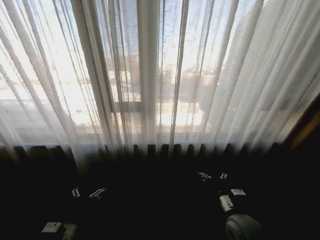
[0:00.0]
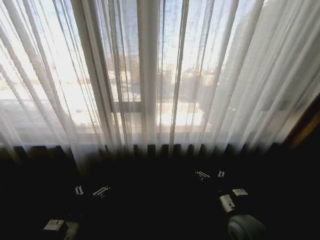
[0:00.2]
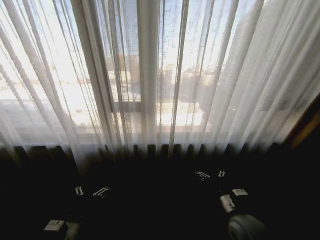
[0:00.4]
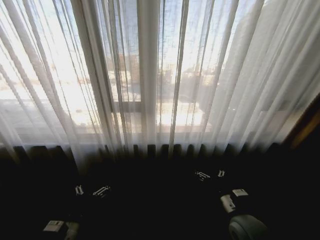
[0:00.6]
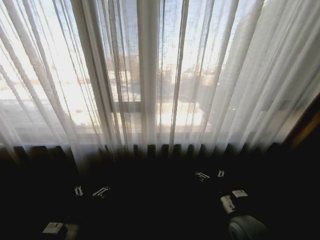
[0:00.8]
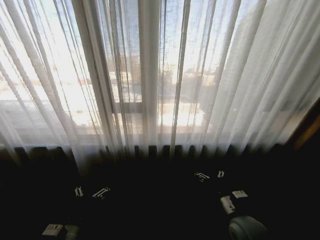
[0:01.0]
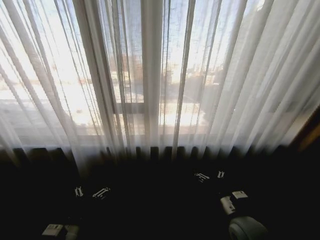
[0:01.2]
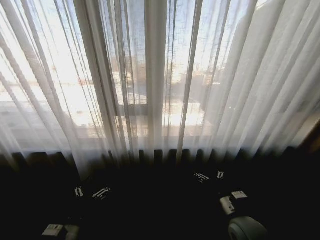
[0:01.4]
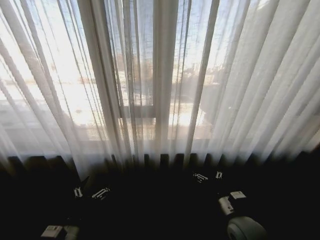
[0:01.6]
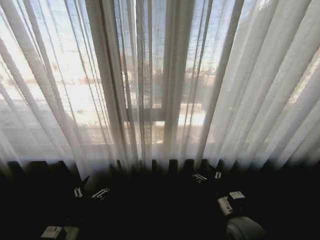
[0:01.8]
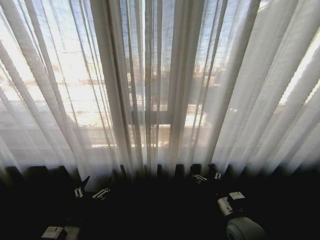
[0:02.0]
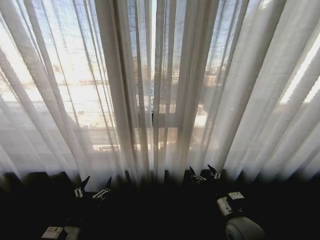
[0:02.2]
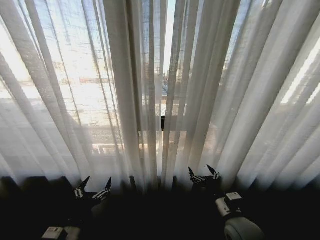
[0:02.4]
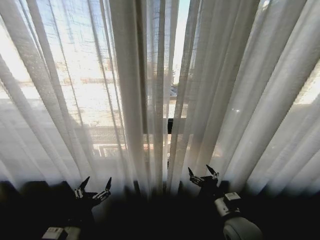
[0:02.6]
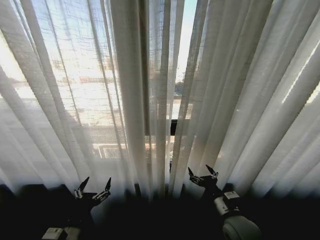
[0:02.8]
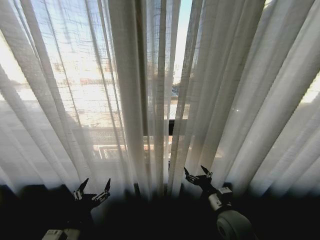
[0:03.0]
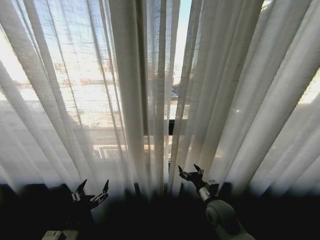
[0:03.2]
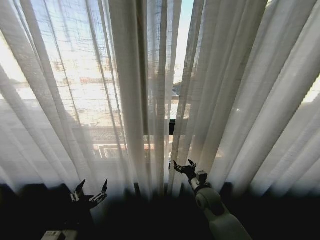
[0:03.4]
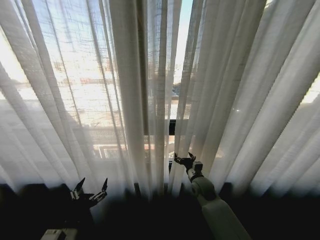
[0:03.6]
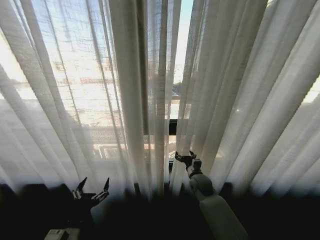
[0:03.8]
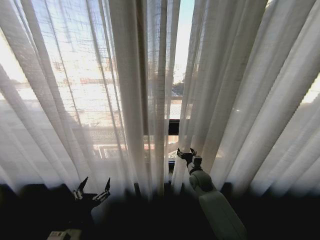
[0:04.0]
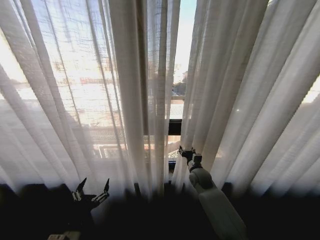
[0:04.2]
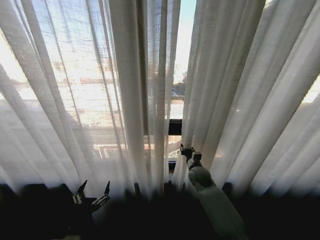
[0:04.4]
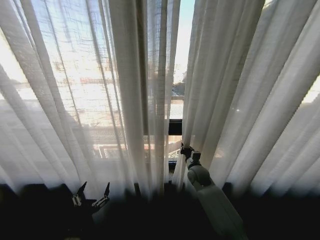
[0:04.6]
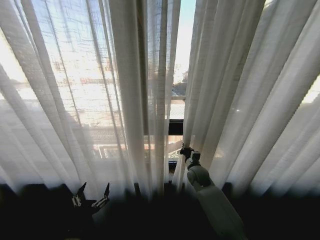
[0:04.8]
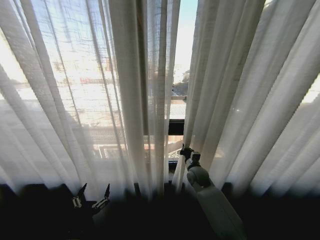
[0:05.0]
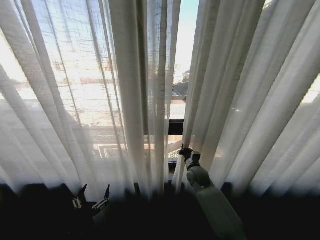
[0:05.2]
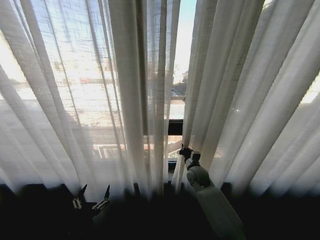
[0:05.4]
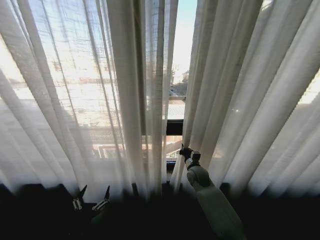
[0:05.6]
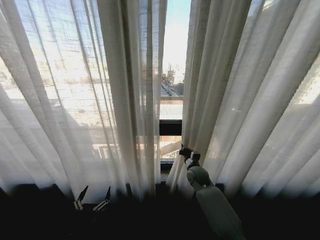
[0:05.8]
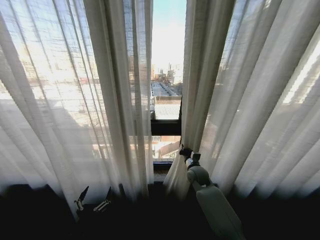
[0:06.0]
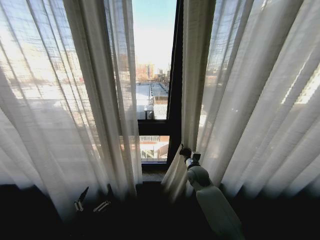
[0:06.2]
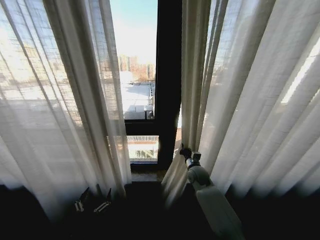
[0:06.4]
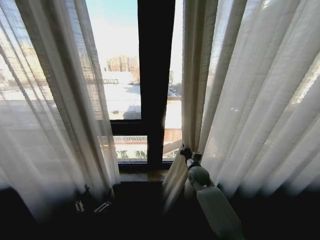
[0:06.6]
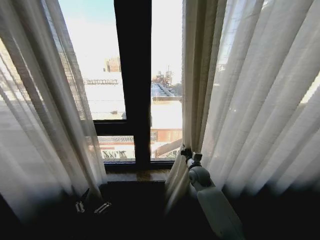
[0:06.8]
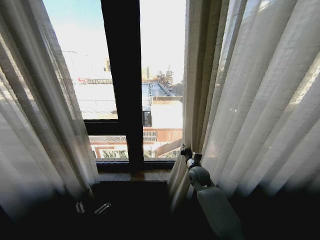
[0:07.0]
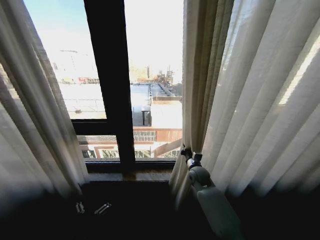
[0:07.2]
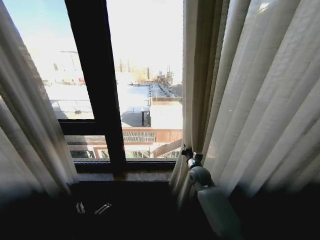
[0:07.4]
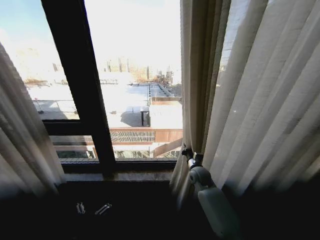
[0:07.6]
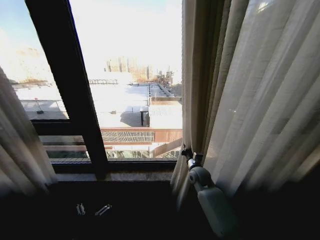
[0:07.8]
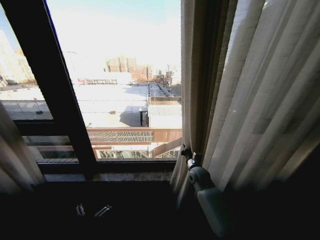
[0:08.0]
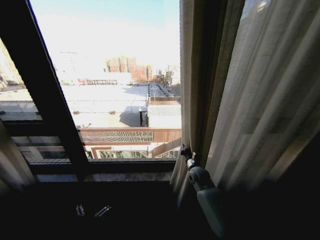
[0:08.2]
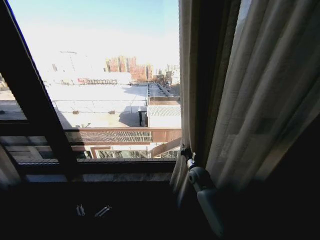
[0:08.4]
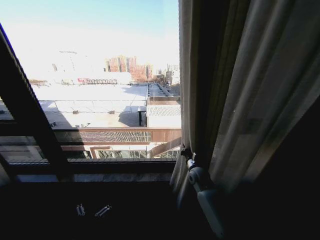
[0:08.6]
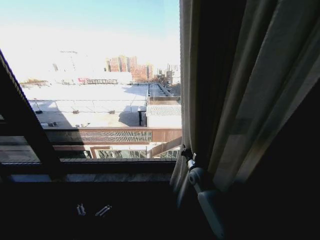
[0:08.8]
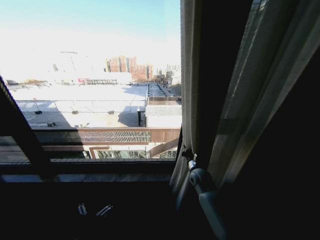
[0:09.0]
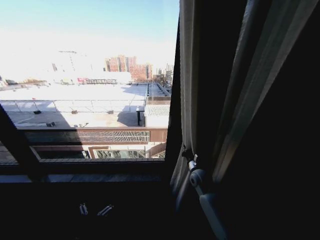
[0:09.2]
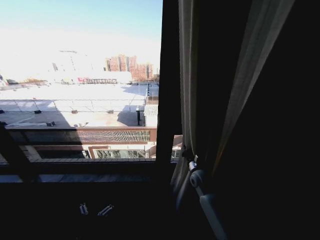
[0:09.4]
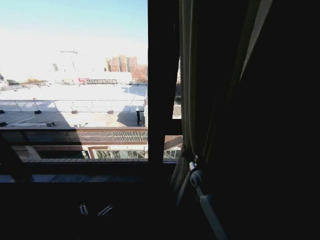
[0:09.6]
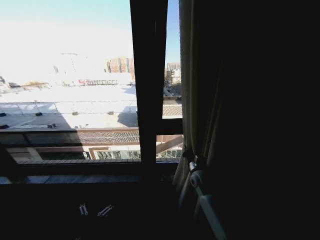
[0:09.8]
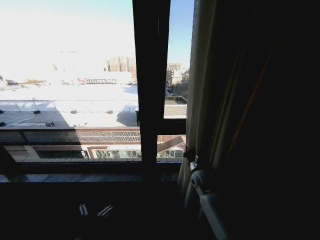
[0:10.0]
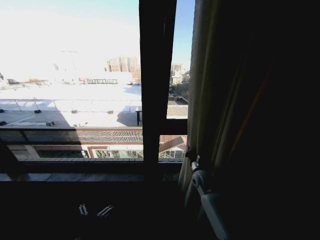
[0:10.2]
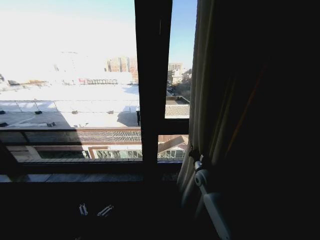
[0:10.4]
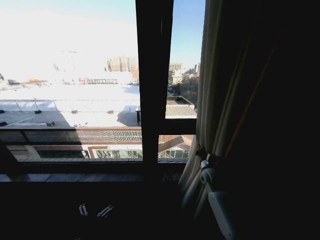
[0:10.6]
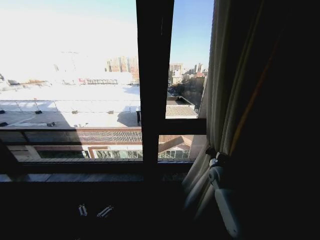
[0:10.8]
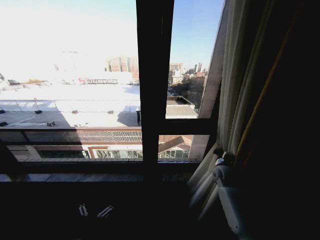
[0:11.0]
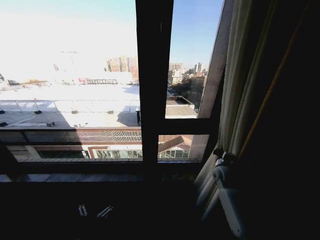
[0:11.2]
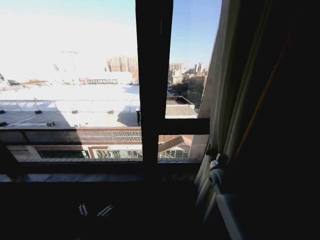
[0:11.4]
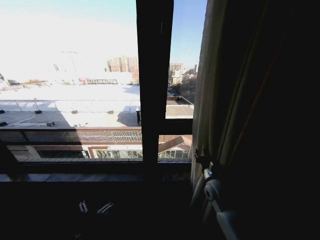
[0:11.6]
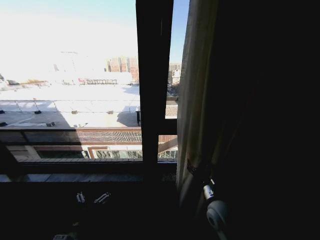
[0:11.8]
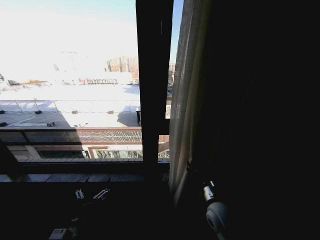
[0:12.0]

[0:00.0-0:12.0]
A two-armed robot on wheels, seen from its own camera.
Task of the whole recording: Open the curtains by pulling them apart, changing their state from closed to fully open.
0:03.0 to 0:04.4: The right gripper shifts roughly 20 cm forward, and closes its fingers.
0:04.4 to 0:06.0: The right gripper closes its fingers.
0:10.4 to 0:12.0: The left gripper ends up approximately 5 cm from where it was. The right gripper shifts roughly 15 cm backward, and opens.

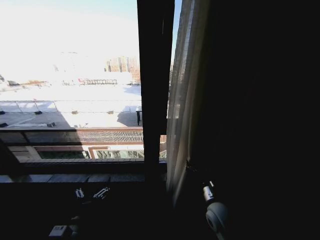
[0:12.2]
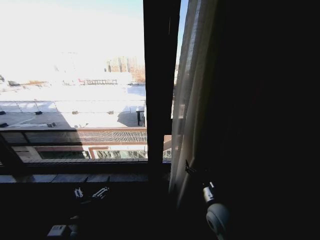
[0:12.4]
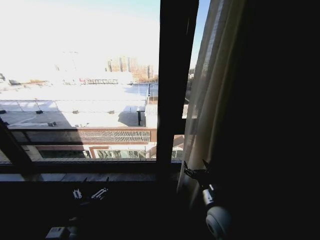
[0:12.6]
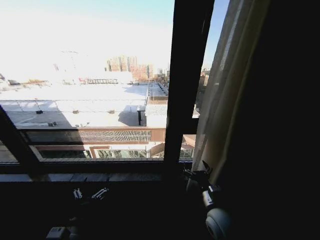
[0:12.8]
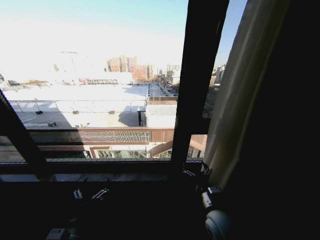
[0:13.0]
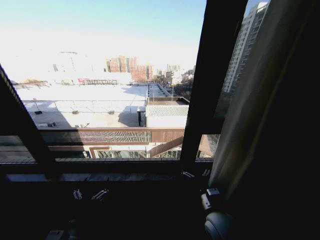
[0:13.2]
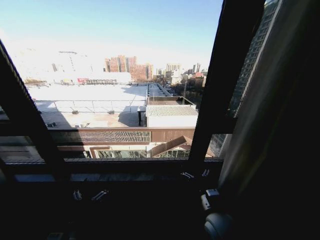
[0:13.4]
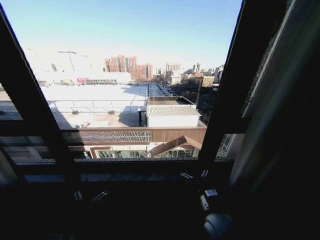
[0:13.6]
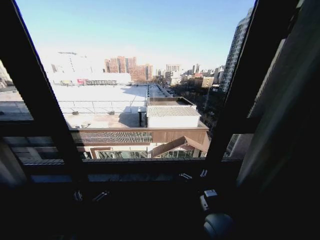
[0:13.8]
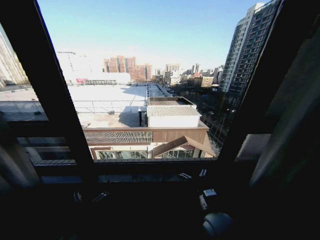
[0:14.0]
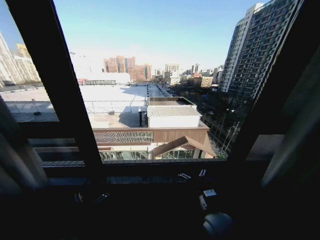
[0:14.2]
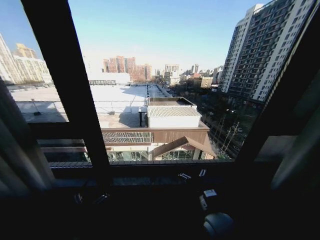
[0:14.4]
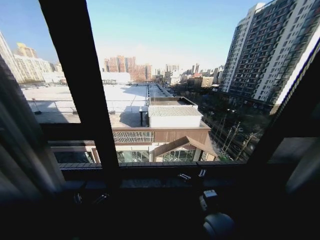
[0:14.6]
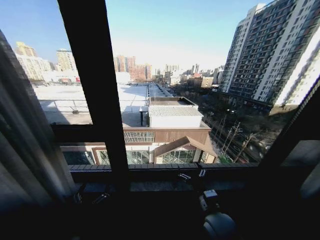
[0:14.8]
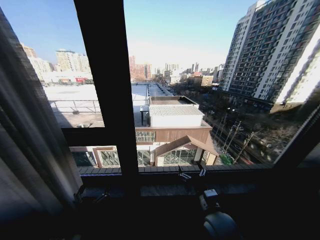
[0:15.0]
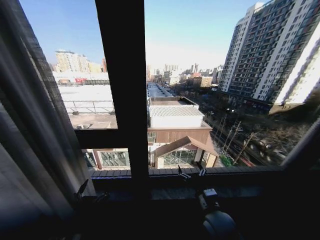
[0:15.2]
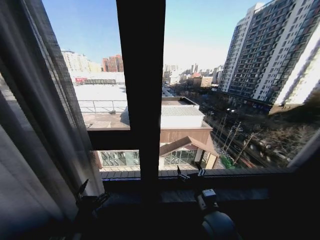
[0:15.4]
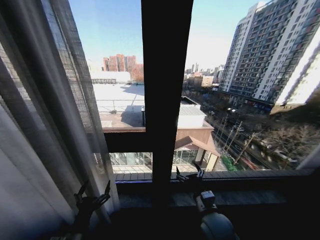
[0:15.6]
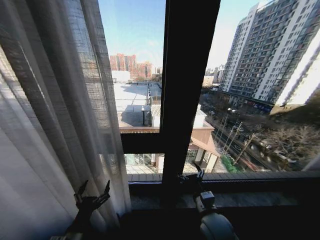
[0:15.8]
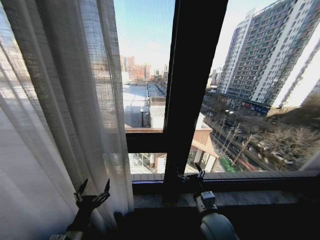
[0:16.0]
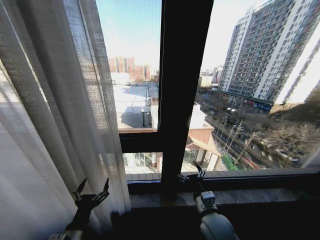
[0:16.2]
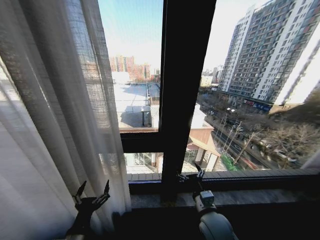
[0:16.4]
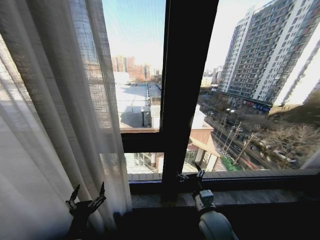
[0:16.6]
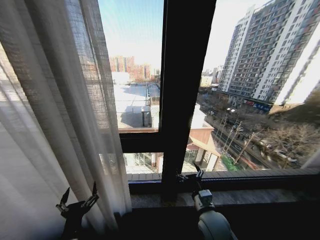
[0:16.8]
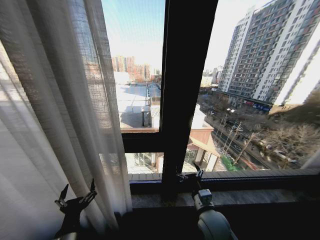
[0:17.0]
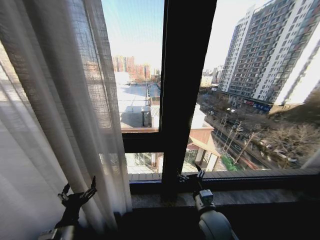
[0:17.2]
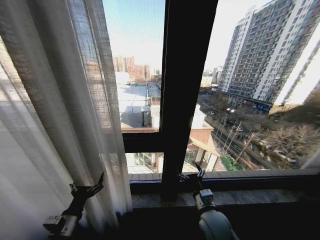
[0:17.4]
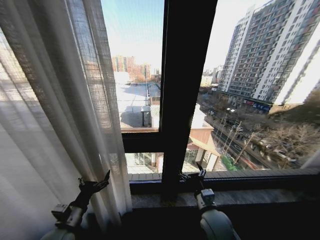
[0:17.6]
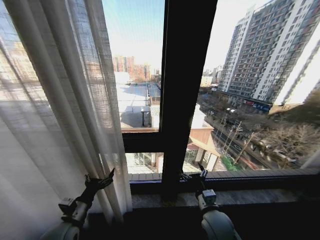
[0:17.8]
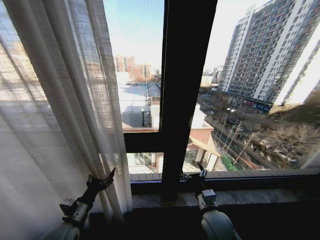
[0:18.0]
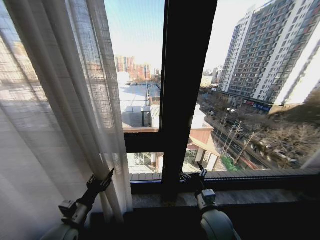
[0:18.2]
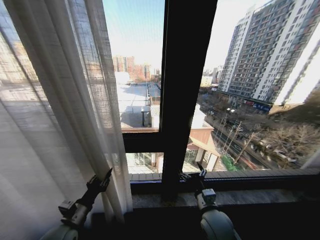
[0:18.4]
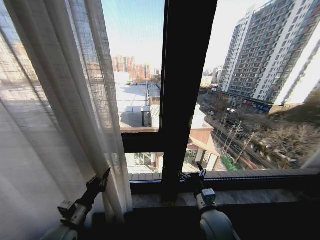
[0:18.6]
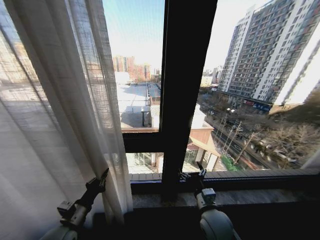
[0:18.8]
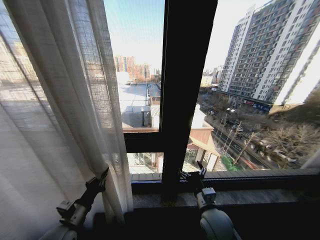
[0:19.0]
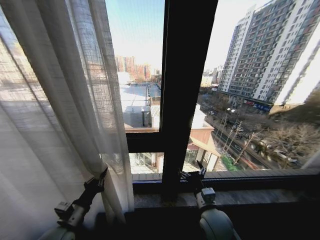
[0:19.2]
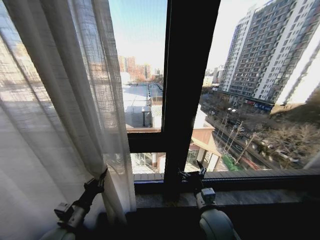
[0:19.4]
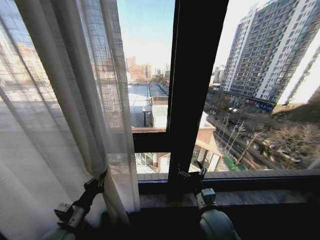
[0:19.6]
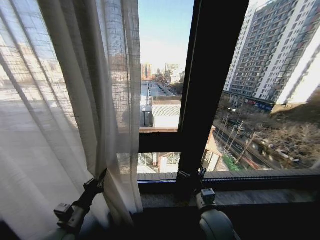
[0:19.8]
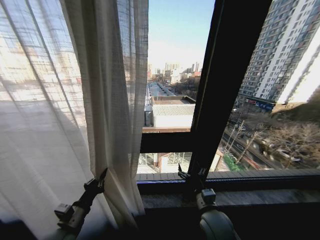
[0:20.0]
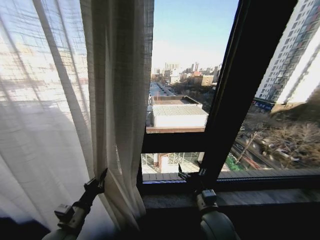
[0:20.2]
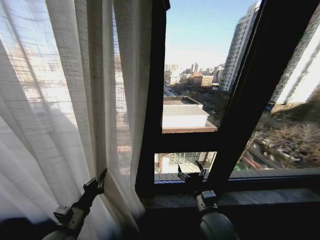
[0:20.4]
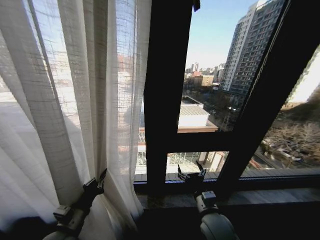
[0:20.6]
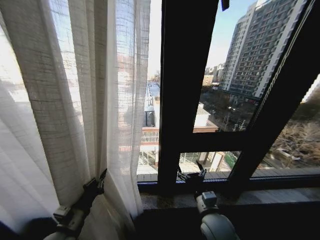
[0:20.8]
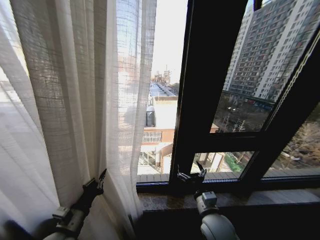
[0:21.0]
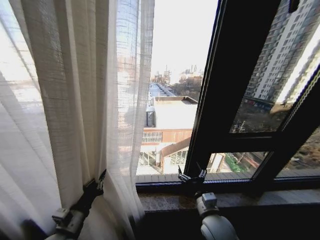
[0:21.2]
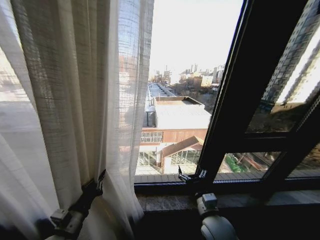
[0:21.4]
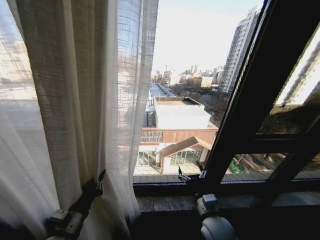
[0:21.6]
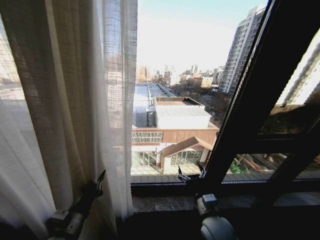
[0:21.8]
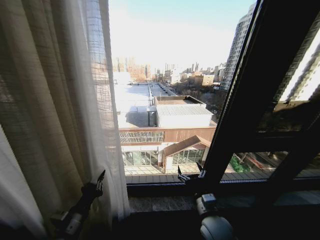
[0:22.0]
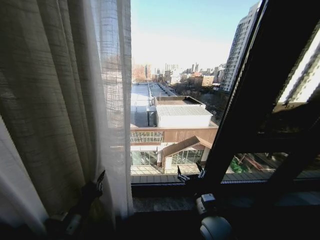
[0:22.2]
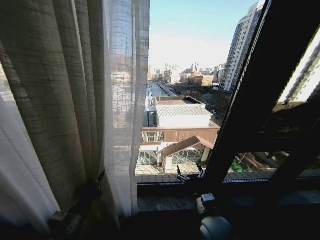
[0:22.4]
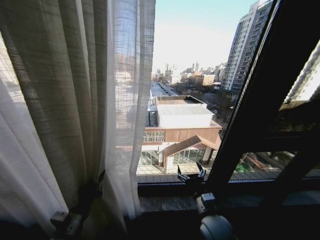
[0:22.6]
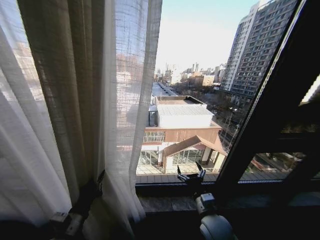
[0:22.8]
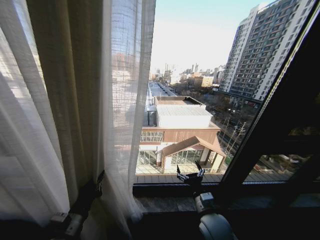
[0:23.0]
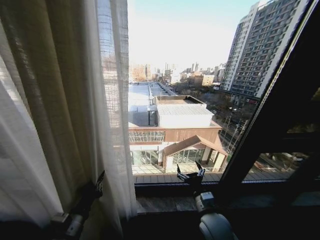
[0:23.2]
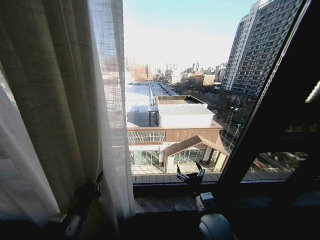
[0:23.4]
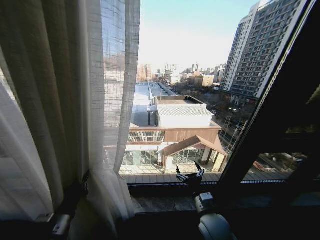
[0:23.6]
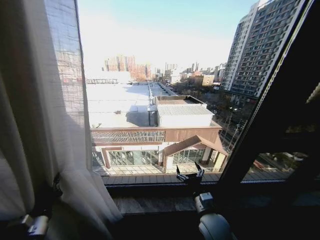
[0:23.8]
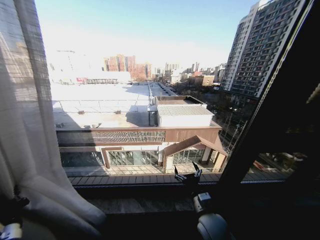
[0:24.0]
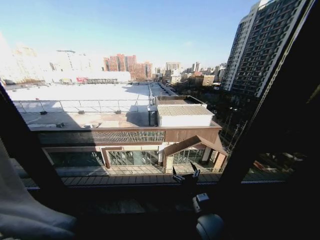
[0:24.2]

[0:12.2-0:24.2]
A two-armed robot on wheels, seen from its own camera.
Task of the whole recording: Open the curtains by pulling them apart, changing their state from closed to fully open.
0:16.6 to 0:18.2: The left gripper moves forward and to the left, roughly 10 cm, and closes its fingers.
0:18.2 to 0:19.8: The left gripper closes its fingers.
0:22.6 to 0:24.2: The left gripper travels to the left by approximately 15 cm.
